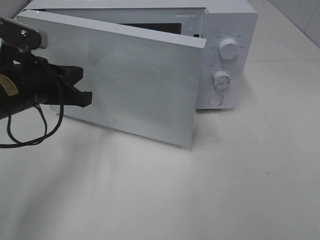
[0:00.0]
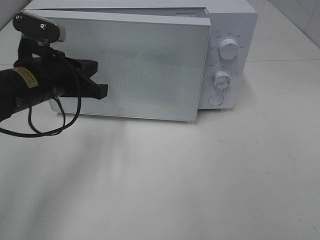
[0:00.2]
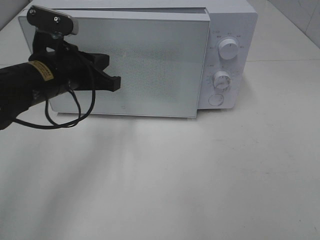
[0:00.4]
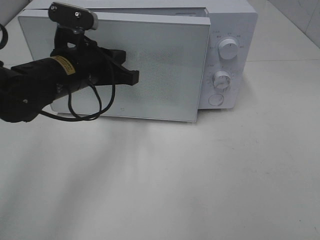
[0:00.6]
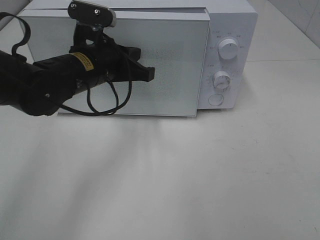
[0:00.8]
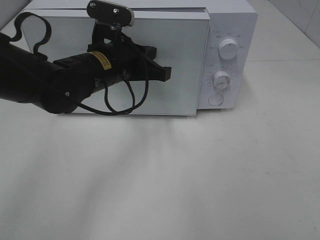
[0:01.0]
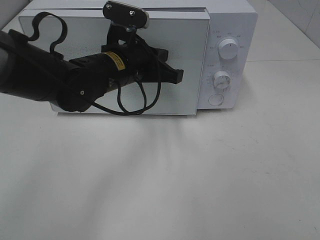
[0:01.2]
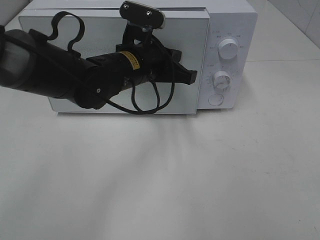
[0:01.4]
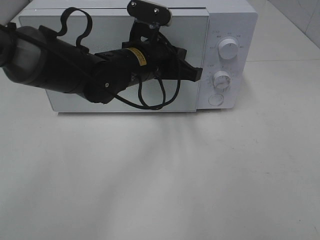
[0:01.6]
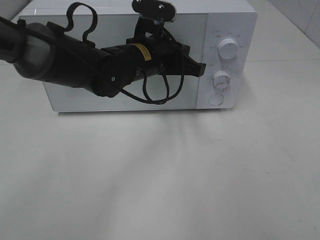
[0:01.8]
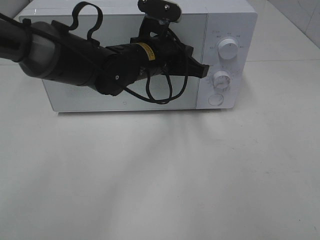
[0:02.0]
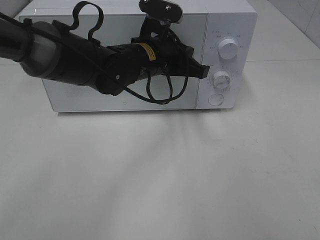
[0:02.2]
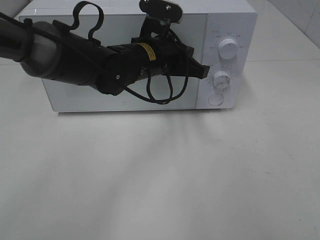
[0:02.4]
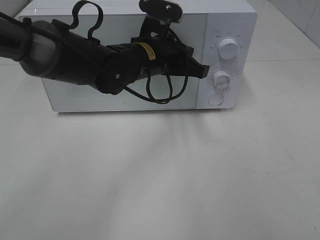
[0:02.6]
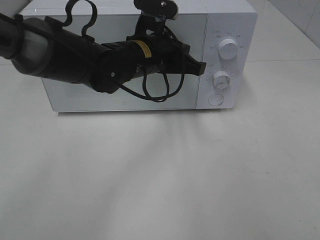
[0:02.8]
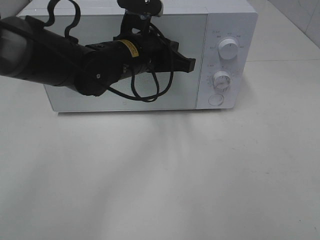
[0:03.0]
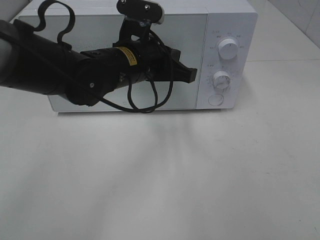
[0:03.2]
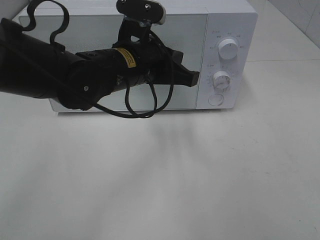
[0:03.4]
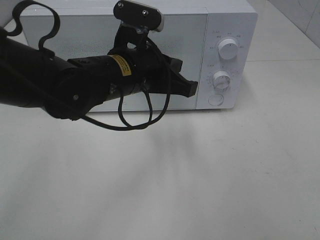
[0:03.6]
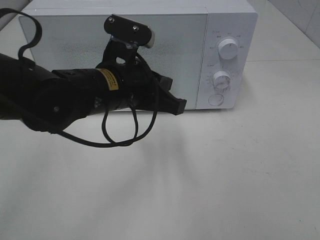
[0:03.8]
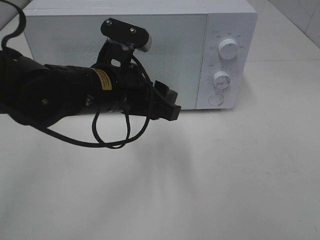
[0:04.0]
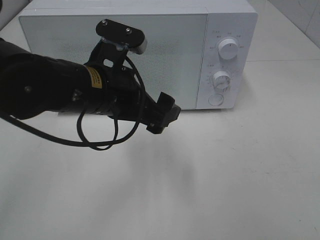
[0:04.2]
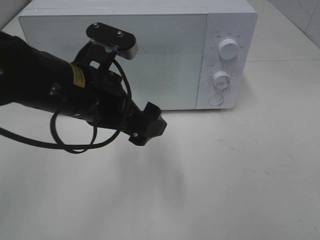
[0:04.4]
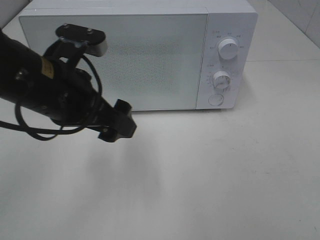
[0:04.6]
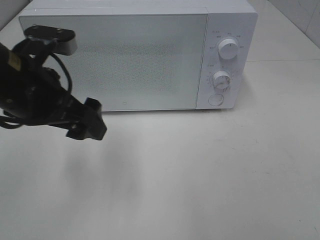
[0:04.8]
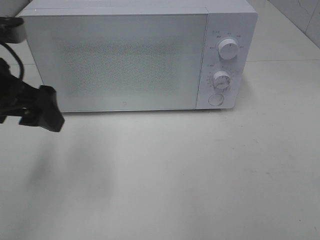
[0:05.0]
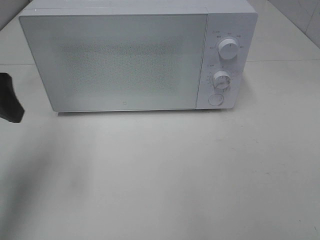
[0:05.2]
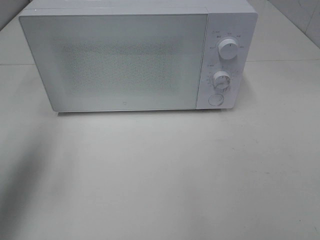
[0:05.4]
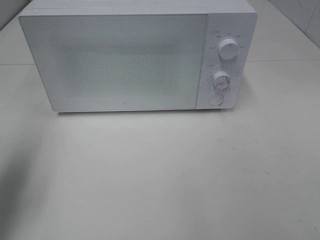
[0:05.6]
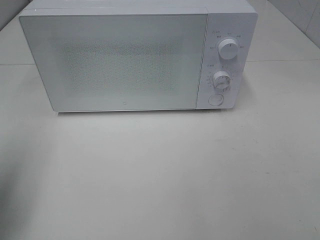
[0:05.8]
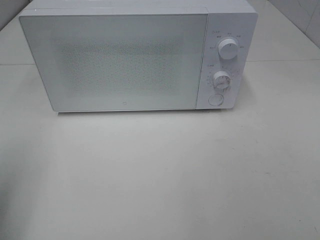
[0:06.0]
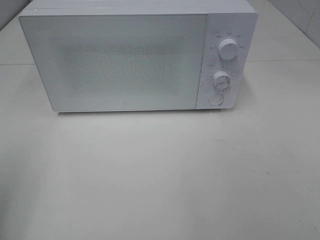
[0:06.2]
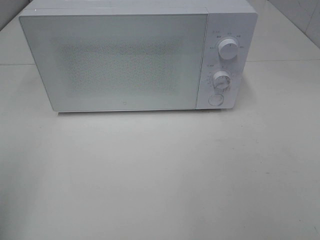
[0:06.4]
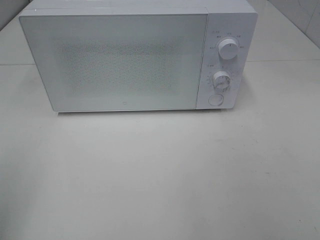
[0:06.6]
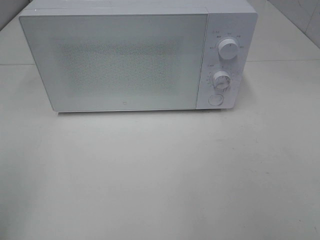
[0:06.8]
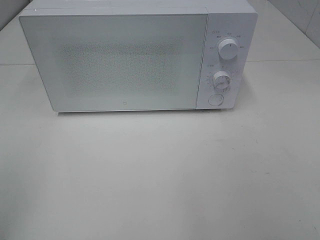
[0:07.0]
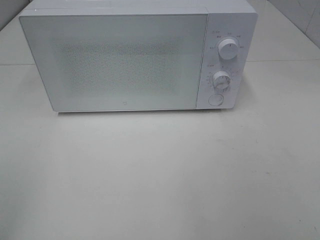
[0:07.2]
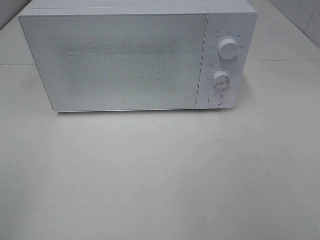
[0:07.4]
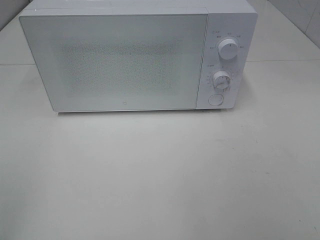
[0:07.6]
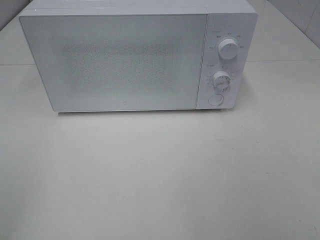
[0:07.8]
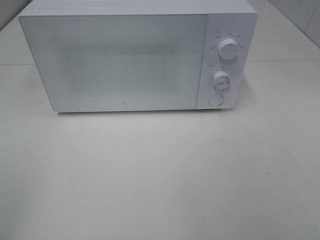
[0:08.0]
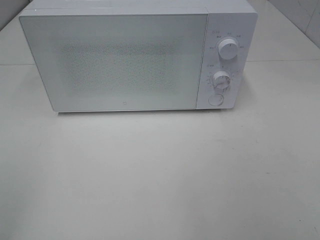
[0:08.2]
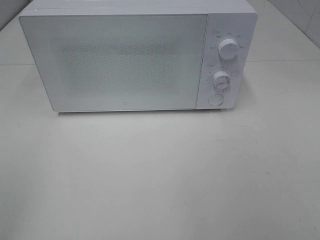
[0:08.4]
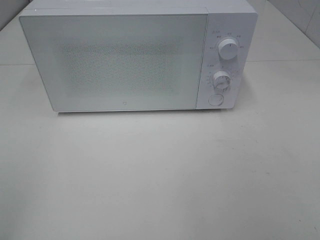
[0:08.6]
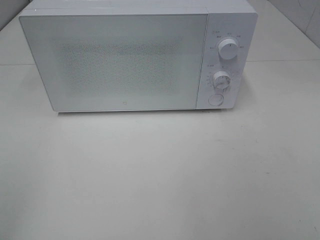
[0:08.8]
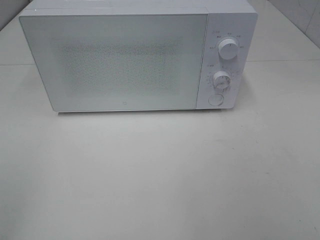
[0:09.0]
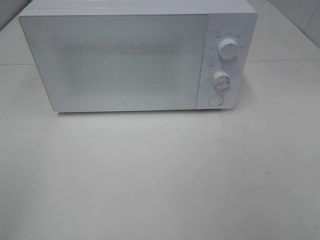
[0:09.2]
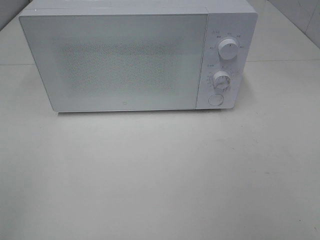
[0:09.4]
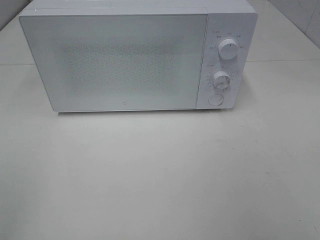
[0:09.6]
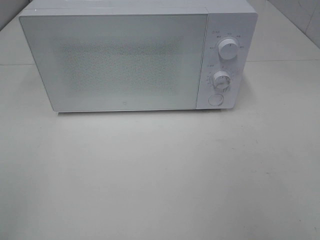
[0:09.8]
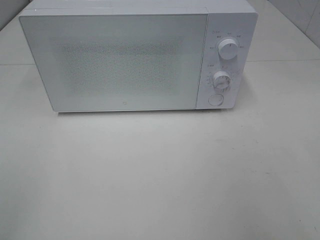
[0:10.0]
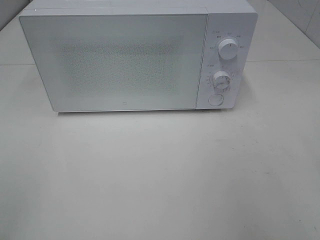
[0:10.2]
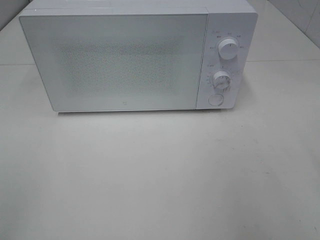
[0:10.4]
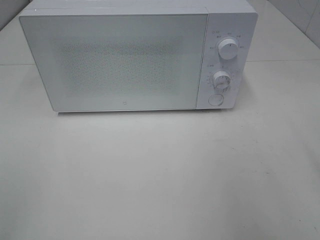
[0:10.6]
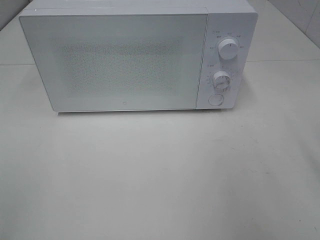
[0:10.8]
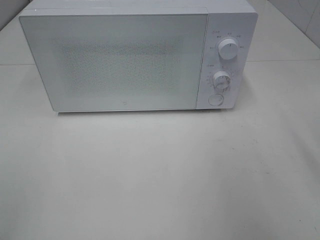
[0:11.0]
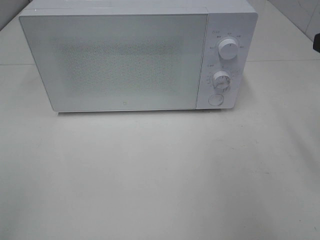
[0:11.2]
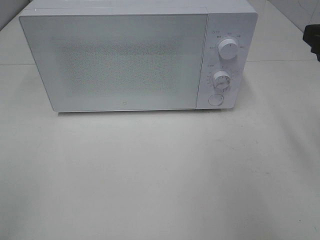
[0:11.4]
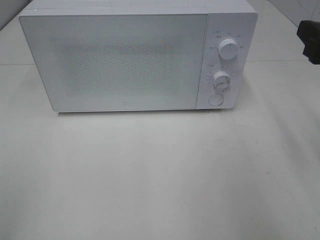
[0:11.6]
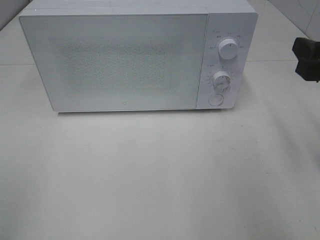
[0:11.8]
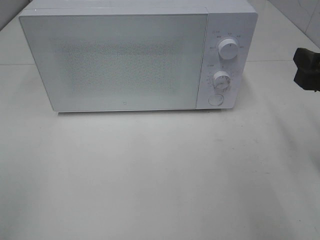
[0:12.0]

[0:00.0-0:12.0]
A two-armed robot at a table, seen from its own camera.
Task of the whole recording: Heat Sandwich.
Step, 0:00.0 to 0:03.4: Left hand: close the microwave door.
0:00.0 to 0:01.6: The left gripper moves to the right, some 15 cm.
0:01.6 to 0:03.0: The grippers stay close to where they were, moving slightly.
0:03.0 to 0:04.4: The left gripper heads backward and to the left, covering roughly 15 cm, and opens its fingers.
0:04.4 to 0:06.0: The left gripper goes some 25 cm to the left and backward.
0:07.6 to 0:09.0: Neither gripper changes place.
0:10.4 to 0:12.0: The right gripper moves forward and downward, approximately 15 cm.

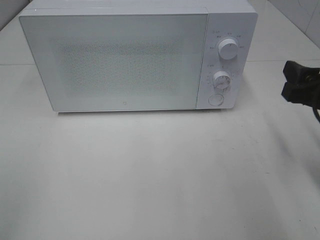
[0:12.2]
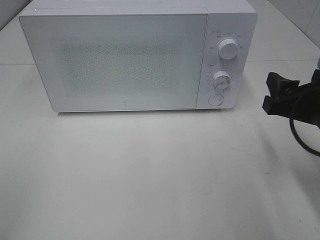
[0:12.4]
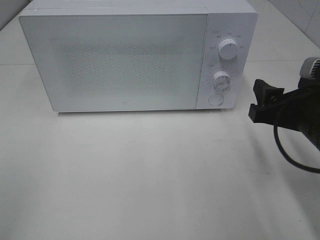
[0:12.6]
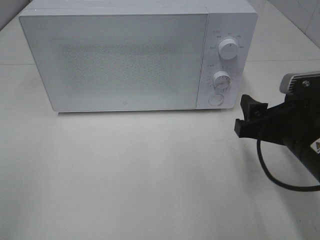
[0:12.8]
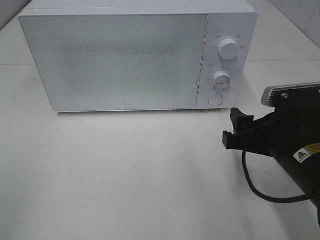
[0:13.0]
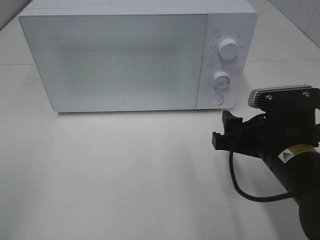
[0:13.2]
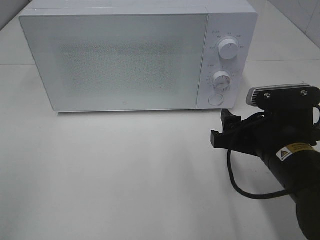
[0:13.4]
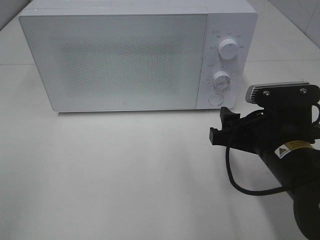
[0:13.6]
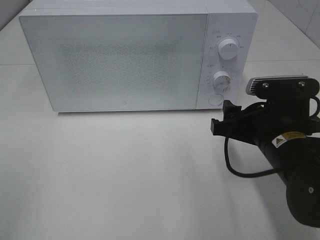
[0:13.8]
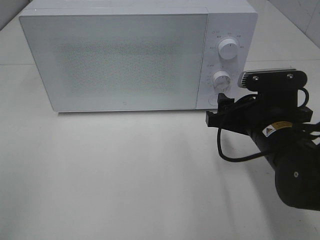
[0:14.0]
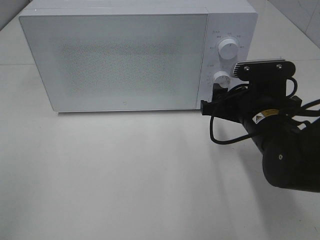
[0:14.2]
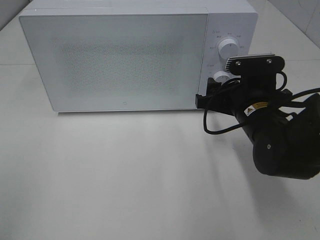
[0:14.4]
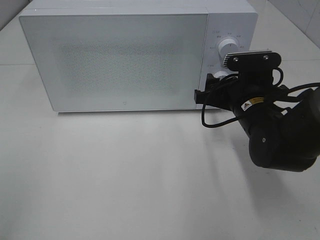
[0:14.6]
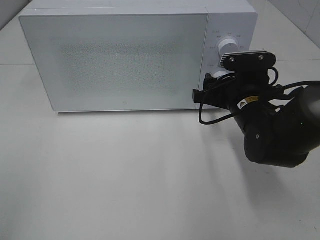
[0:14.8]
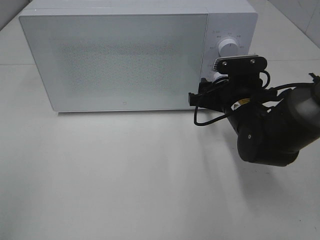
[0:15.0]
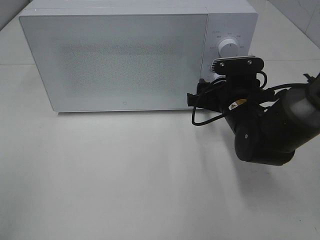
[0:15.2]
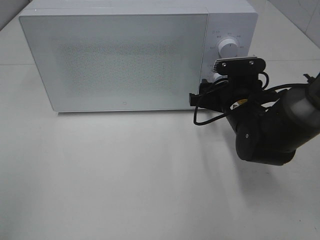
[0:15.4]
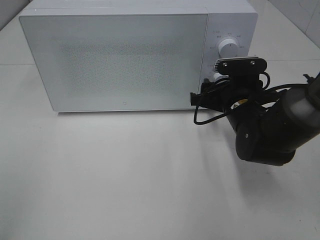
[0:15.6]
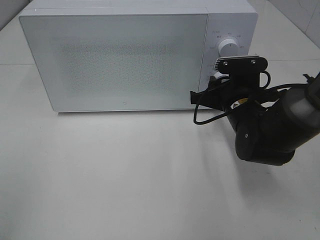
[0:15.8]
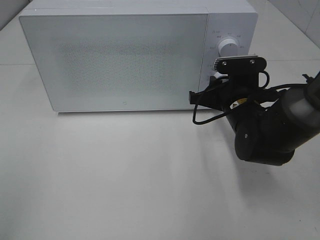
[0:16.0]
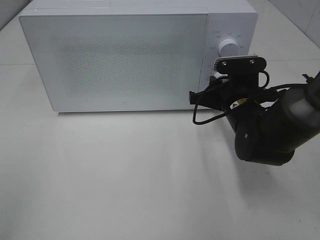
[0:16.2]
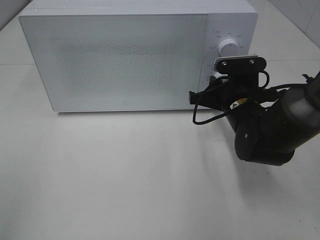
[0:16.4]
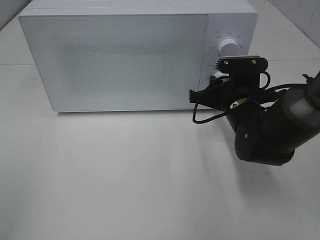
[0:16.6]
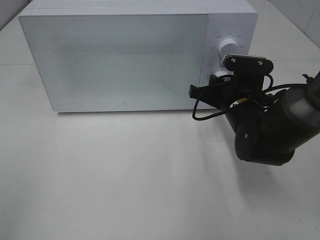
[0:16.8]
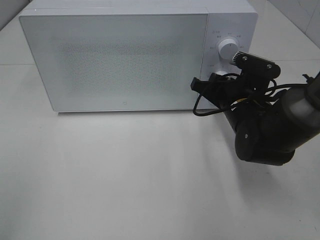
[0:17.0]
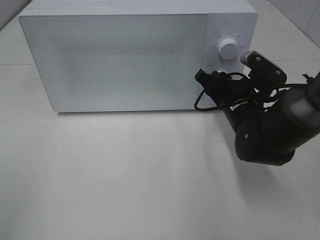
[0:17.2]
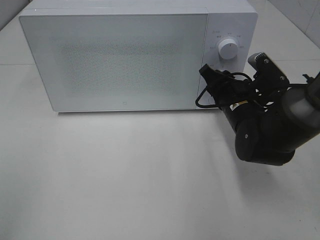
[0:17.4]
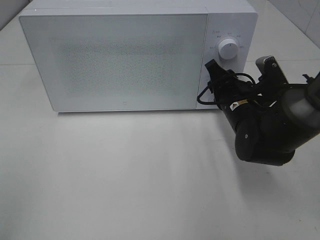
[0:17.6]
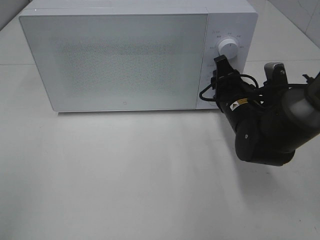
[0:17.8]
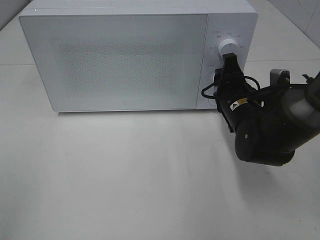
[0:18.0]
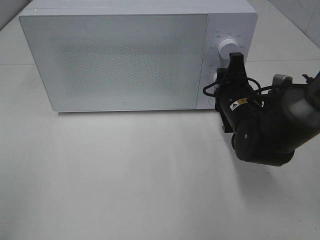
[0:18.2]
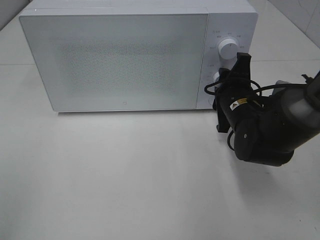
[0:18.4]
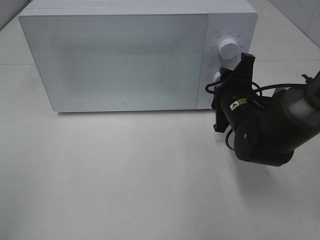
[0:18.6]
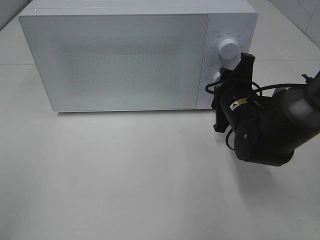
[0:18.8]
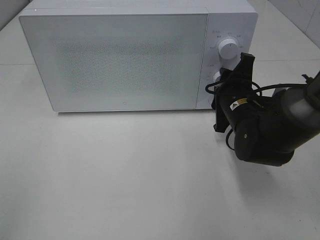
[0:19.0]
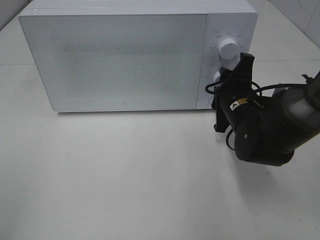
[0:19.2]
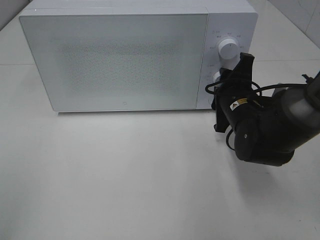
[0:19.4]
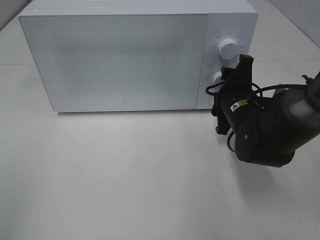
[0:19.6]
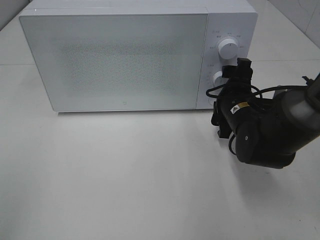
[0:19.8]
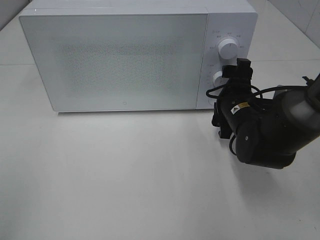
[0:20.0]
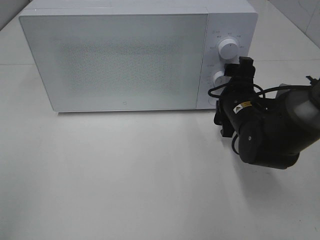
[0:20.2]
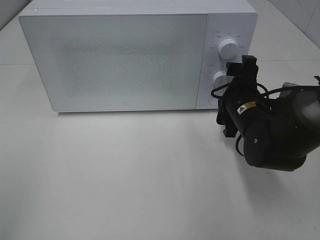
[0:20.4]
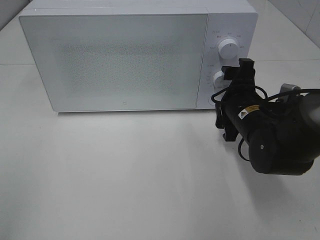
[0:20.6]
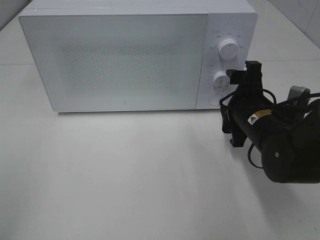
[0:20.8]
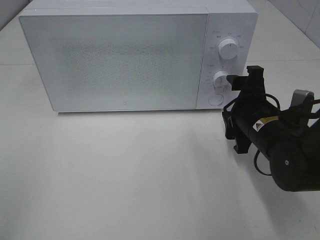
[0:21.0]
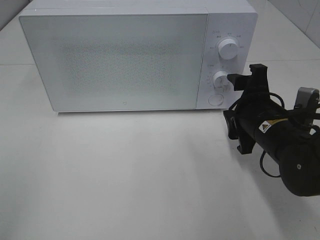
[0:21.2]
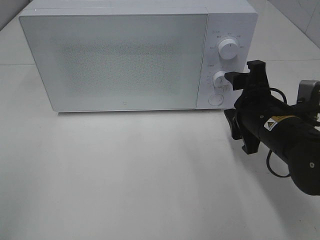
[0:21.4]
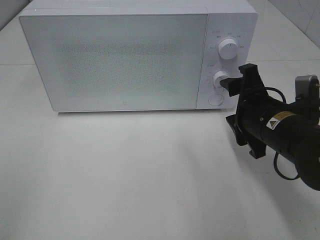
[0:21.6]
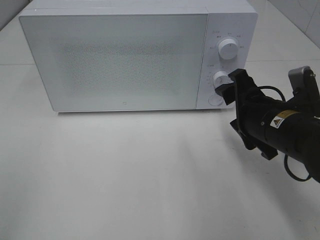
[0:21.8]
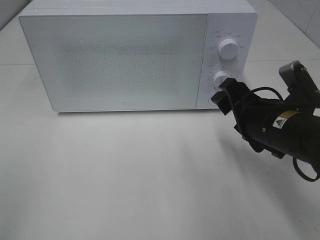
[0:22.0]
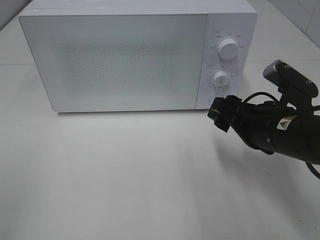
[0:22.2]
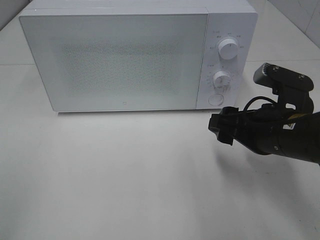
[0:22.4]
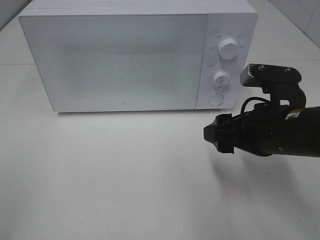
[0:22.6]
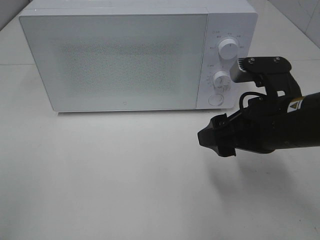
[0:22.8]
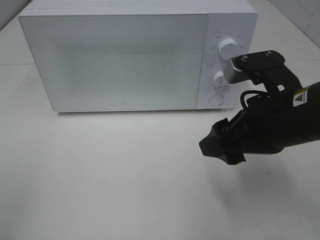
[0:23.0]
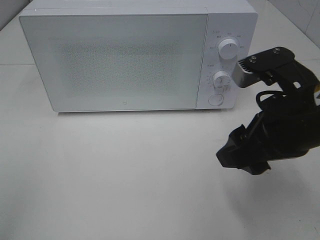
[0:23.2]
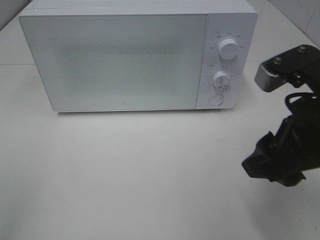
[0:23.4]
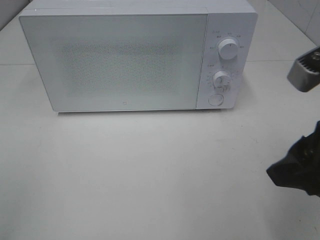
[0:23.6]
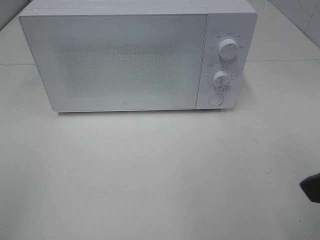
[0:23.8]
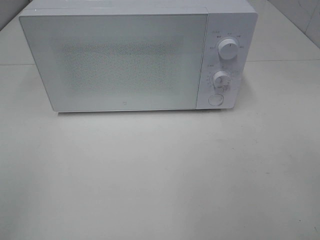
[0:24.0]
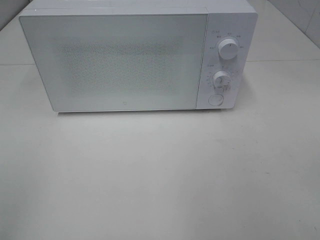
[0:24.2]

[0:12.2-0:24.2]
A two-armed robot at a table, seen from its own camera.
Task of the whole recording: Heat Sandwich.
Step, 0:12.2 to 0:20.0: Right hand: twist timer button.
0:12.2 to 0:13.8: The right gripper moves to the left and downward, roughly 10 cm.
0:13.8 to 0:15.2: The right gripper is displaced forward by approximately 10 cm.
0:15.2 to 0:16.6: The right gripper closes its fingers.
0:18.2 to 0:19.8: The right gripper opens its fingers.
0:19.8 to 0:21.2: The right gripper moves backward, approximately 5 cm.
0:21.2 to 0:22.6: The right gripper moves about 5 cm.
0:22.6 to 0:24.2: The right gripper goes roughly 20 cm backward, upward and to the right.
